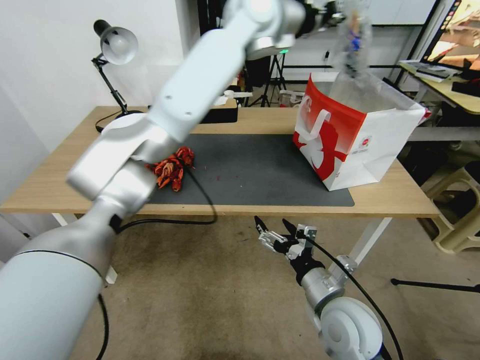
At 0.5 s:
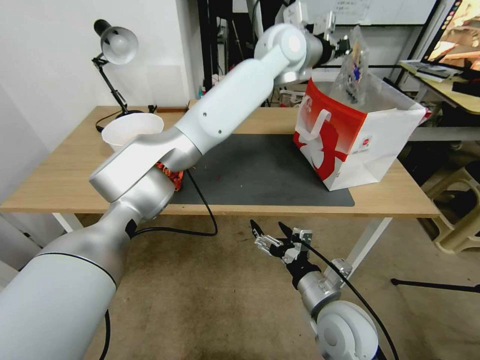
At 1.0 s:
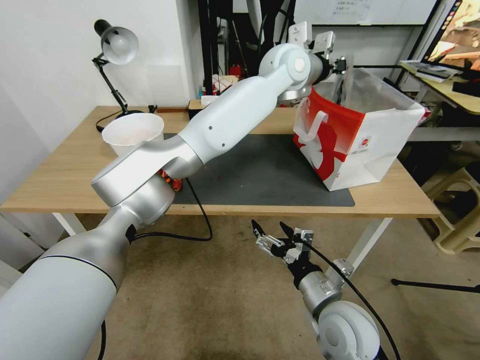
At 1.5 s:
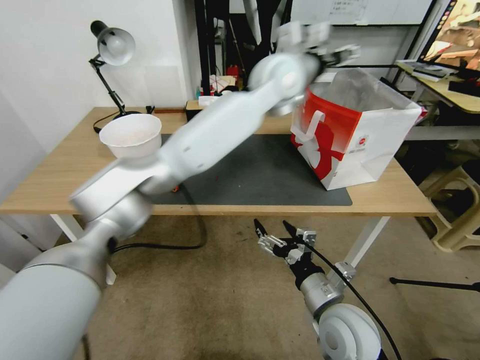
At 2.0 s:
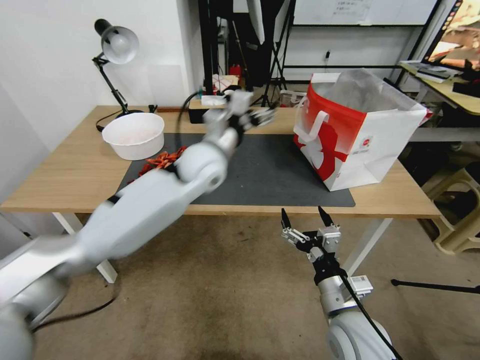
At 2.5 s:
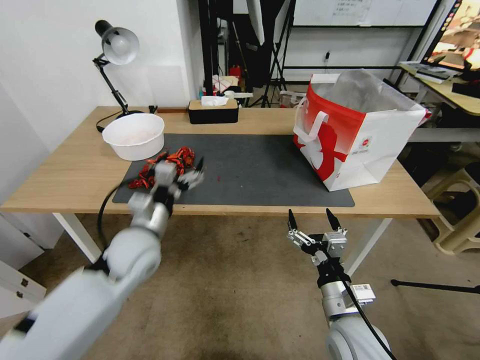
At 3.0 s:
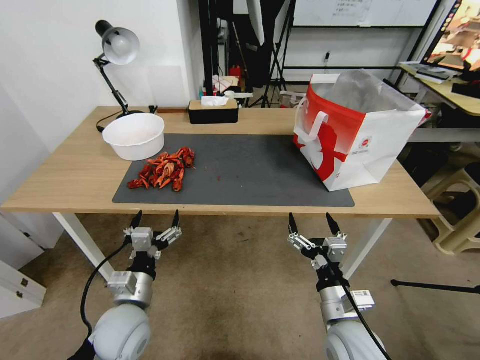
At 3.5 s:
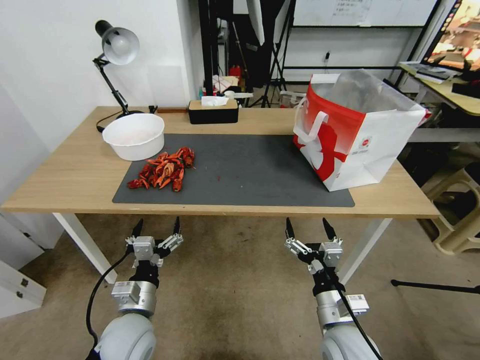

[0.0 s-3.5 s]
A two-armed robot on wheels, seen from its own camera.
Task of the whole recording: Close the takeout container lid, then place the container into the takeout bag.
0.0 to 2.0 s: The left gripper shifts about 30 cm downward, backward and to the left, and opens its fingers.
2.0 to 3.5 s: The left gripper heads backward, downward and to the left, covering about 40 cm.

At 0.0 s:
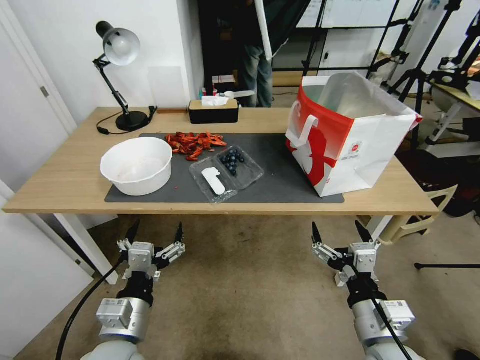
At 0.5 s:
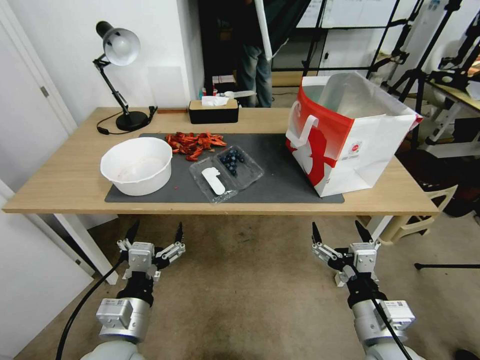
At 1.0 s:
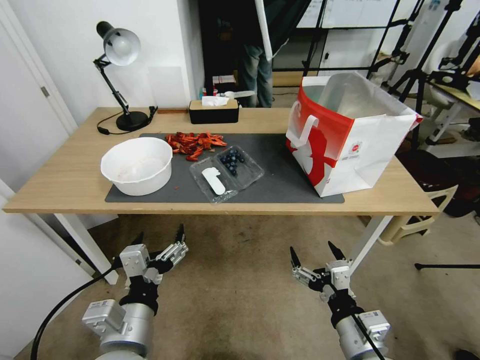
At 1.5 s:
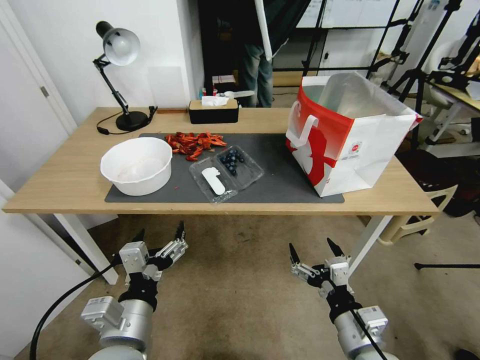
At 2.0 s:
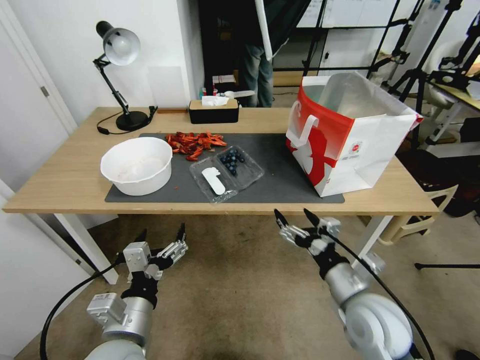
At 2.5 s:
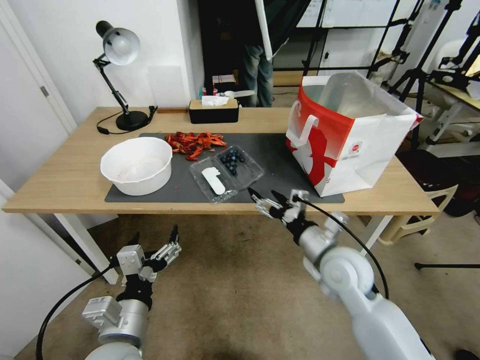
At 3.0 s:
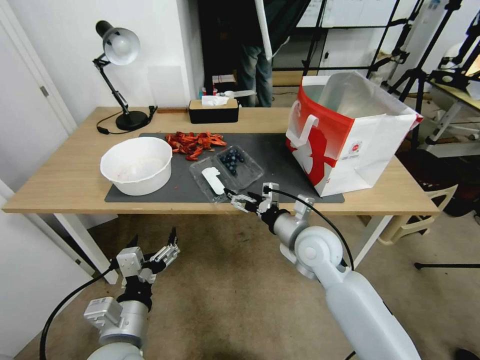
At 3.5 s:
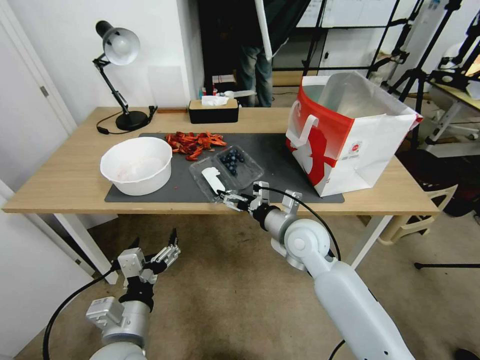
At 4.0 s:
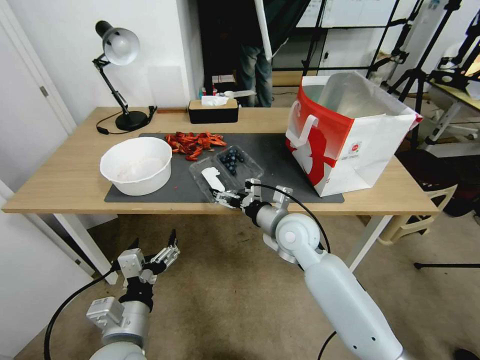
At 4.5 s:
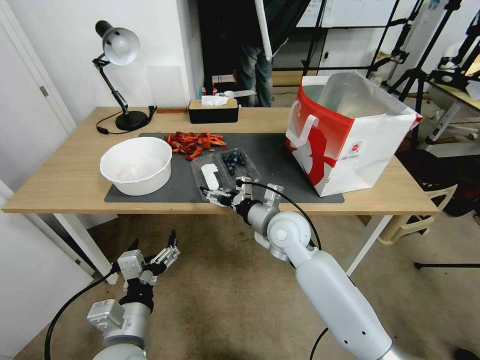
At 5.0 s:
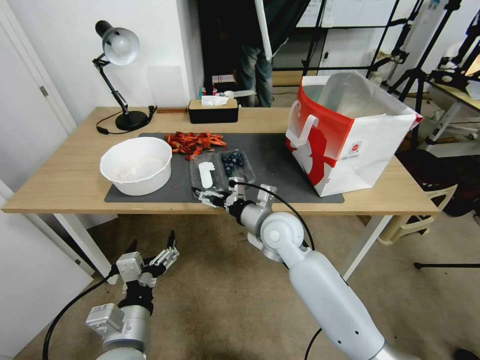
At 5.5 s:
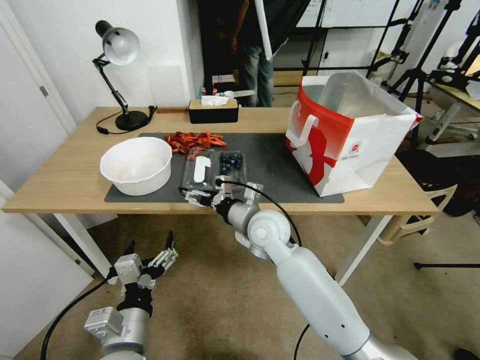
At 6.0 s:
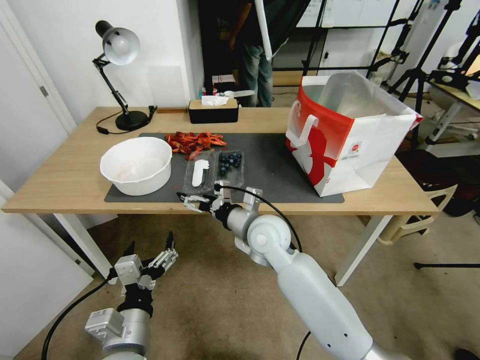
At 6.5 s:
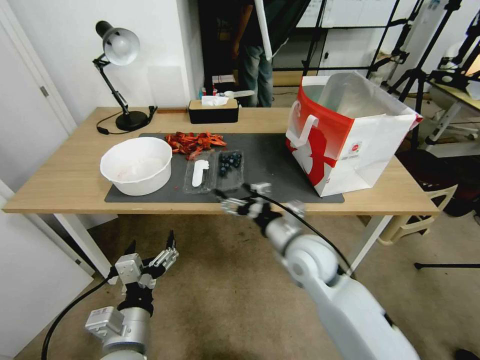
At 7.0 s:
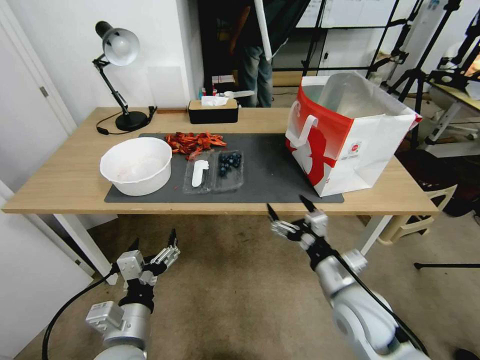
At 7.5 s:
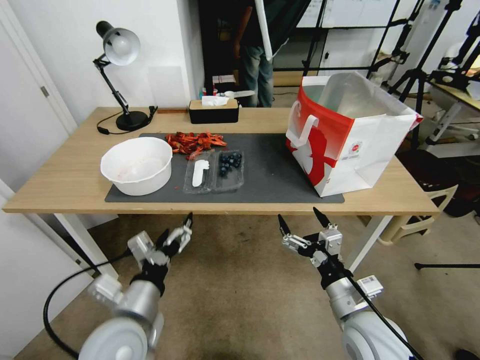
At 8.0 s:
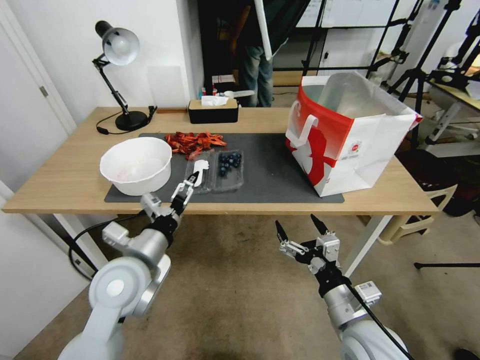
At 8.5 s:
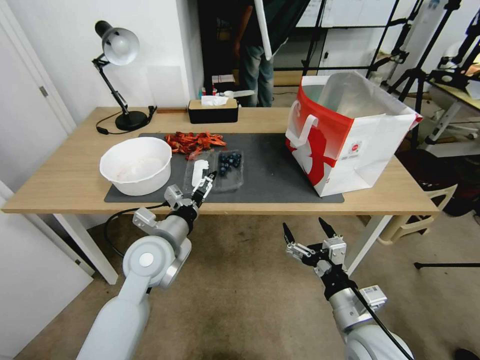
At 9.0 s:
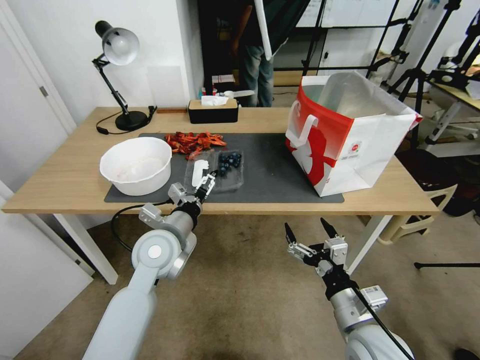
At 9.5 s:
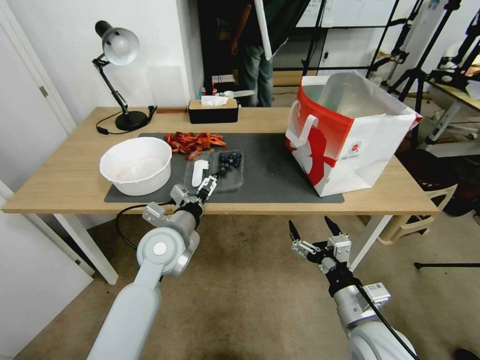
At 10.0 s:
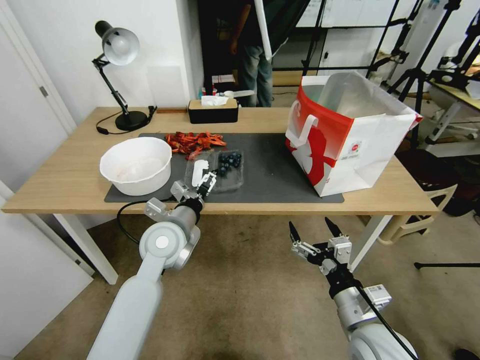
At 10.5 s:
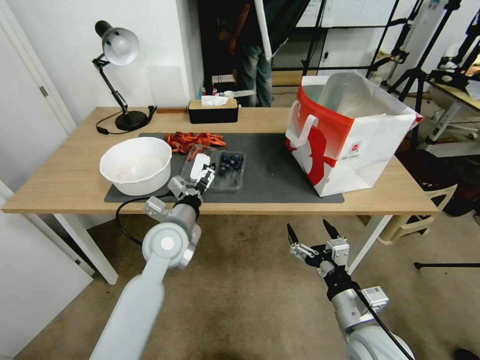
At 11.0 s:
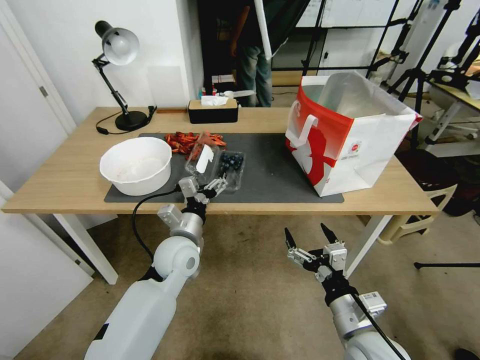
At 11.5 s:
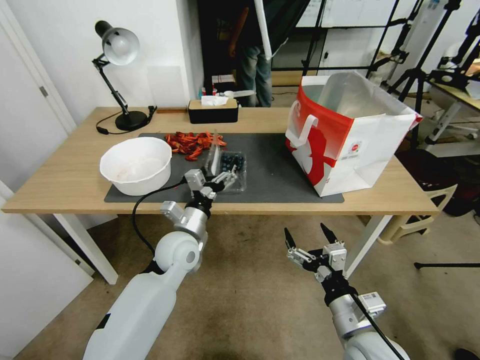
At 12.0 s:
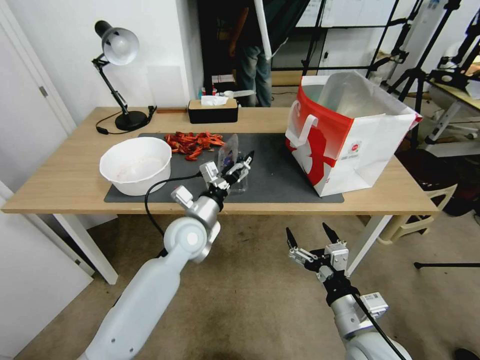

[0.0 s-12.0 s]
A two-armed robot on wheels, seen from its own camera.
Task of the whole recording: Close the takeout container lid, then place the container into the takeout bag.
2.0 to 4.0 s: The right gripper is displaced forward and to the left by some 20 cm.
4.0 to 6.0 s: The right gripper shifts about 10 cm to the left.
6.0 to 8.0 s: The left gripper goes some 15 cm forward and upward, while the right gripper shifts approximately 25 cm backward and to the right.
8.0 to 10.0 s: The left gripper is displaced forward by approximately 10 cm.
10.0 to 12.0 s: The left gripper moves some 5 cm.

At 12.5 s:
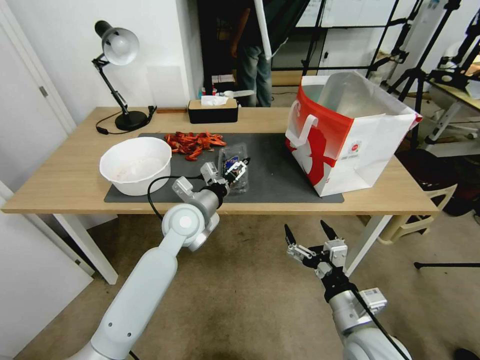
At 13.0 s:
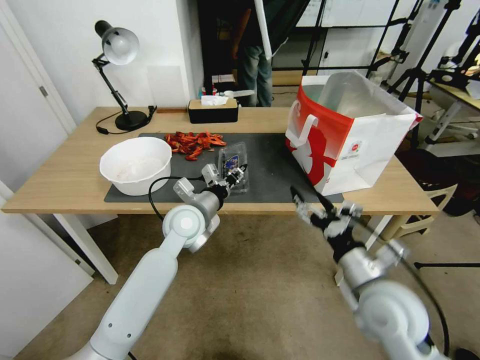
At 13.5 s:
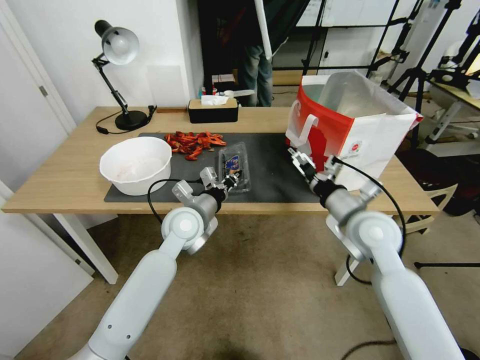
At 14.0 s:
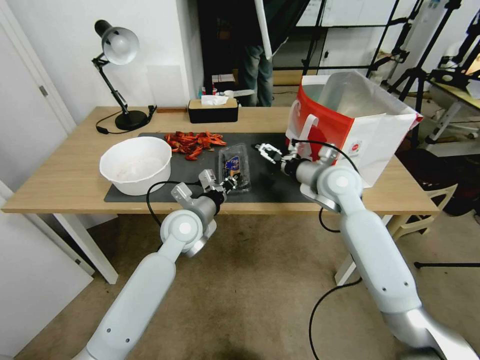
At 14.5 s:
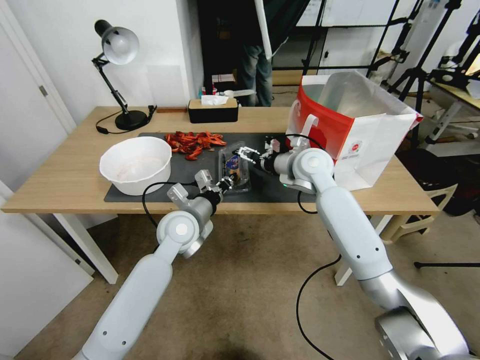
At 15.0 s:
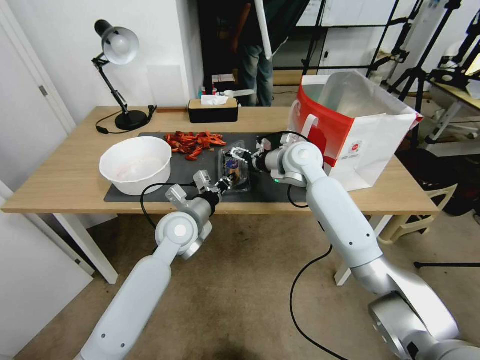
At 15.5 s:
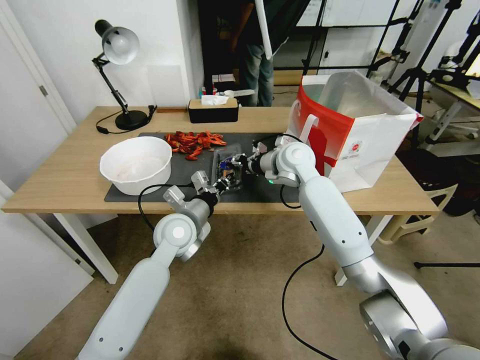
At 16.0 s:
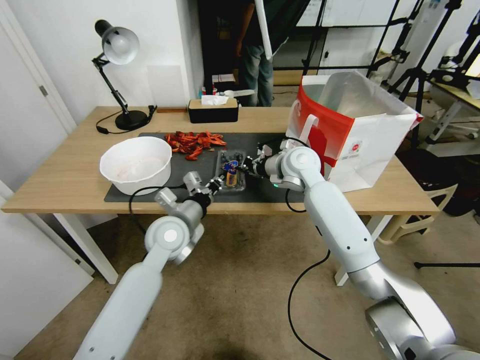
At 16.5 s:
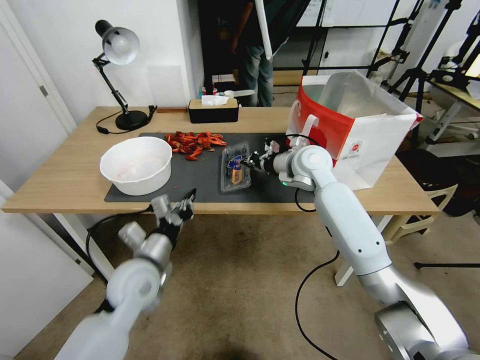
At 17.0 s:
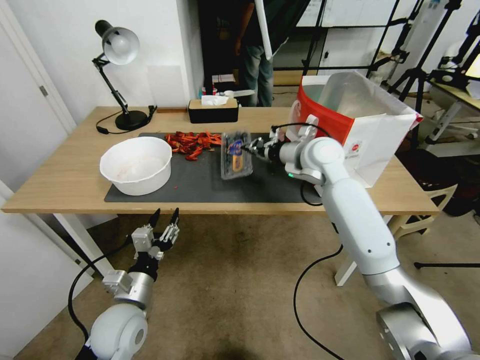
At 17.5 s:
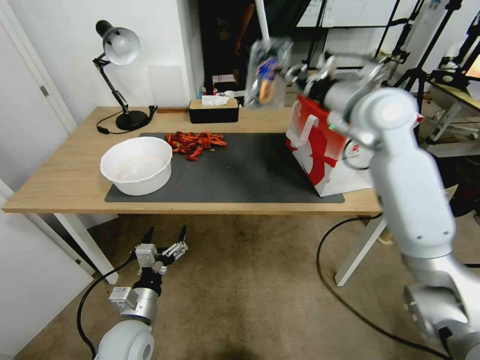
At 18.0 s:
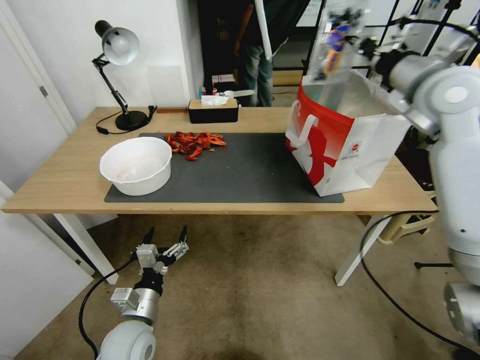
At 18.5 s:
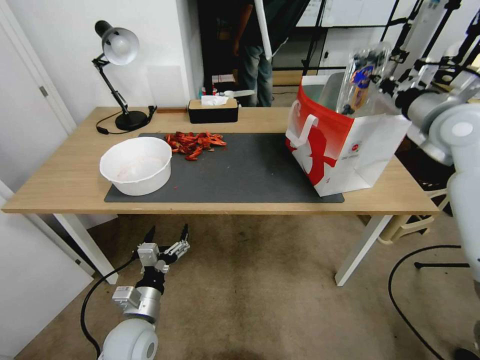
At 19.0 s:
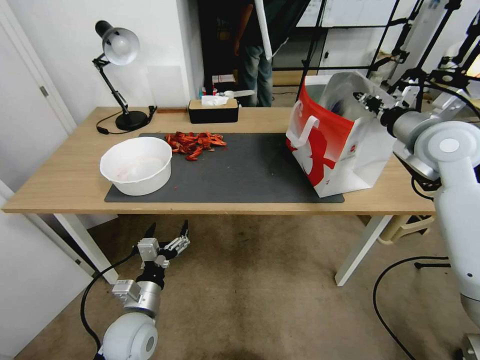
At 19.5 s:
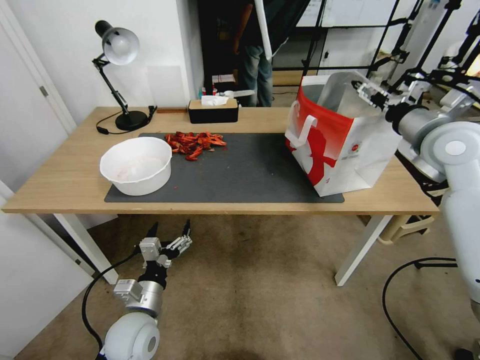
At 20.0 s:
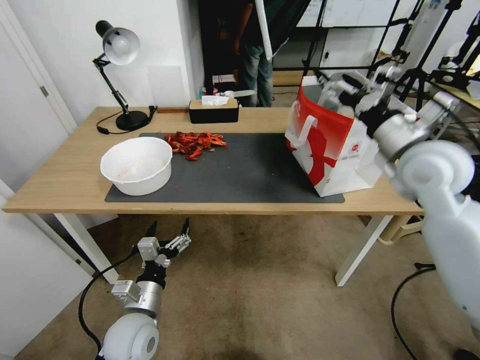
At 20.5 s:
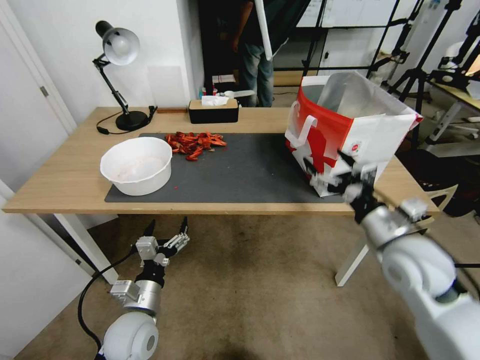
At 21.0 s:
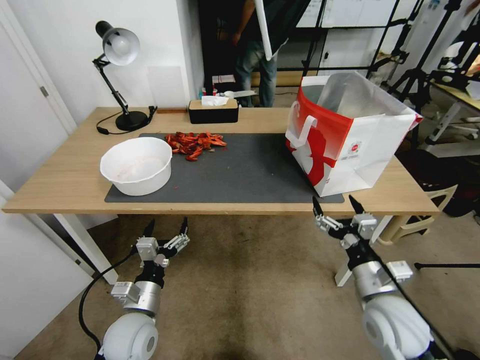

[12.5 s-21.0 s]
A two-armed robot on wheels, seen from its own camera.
Task of the whole recording: Close the takeout container lid, then place the container into the takeout bag.
12.5 to 14.5 s: The left gripper closes. The right gripper heads forward, covering some 35 cm.
14.5 to 16.5 s: The right gripper closes up. The left gripper travels backward and to the left by roughly 15 cm.
16.5 to 19.0 s: The left gripper goes approximately 10 cm downward and backward, and opens its fingers. Meanwhile the right gripper shifts roughly 25 cm to the right, upward and backward.
19.0 to 21.0 s: The right gripper goes some 30 cm downward and backward, and opens its fingers.

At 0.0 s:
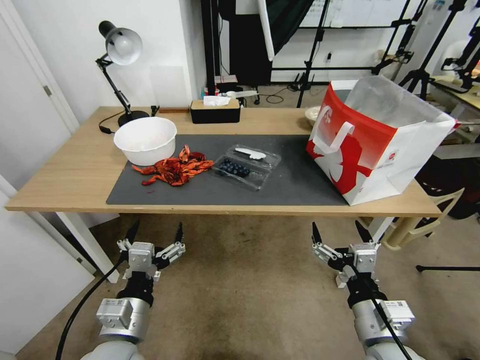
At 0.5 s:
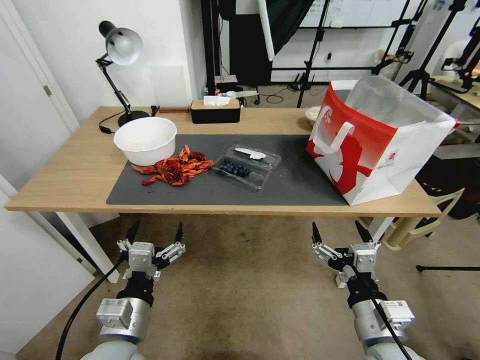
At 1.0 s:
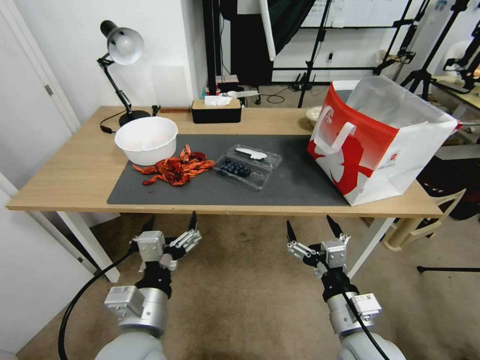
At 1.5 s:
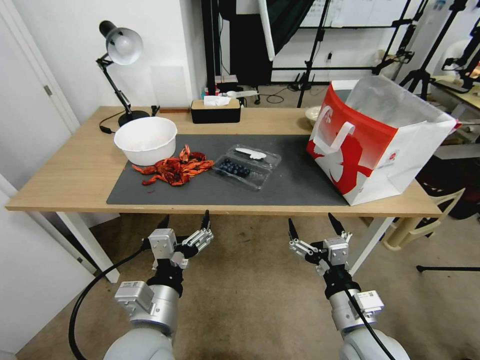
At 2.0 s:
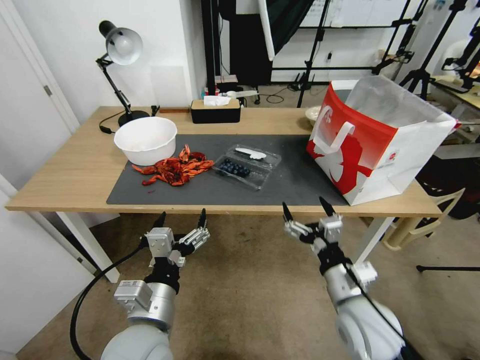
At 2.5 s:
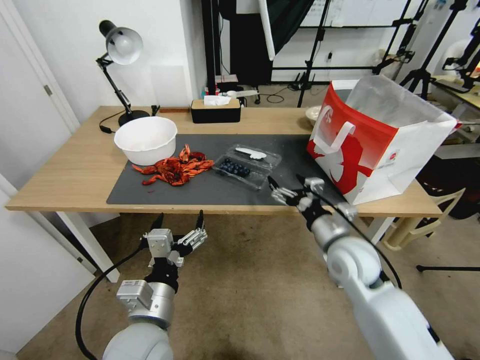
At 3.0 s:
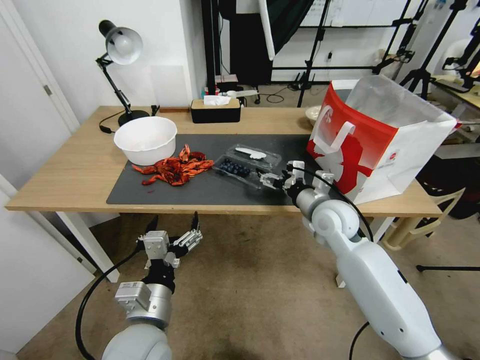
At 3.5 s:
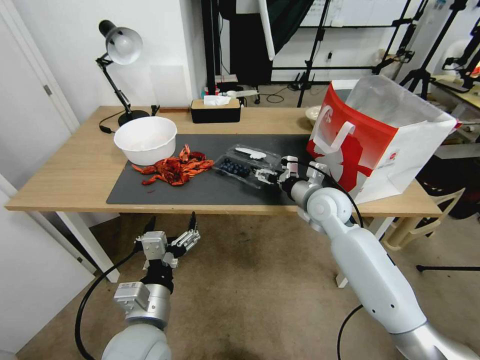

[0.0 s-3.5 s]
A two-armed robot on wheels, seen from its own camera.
Task of the whole recording: Close the takeout container lid, then place the container into the takeout bag.
2.0 to 3.5 s: The right gripper shifts some 25 cm forward.
